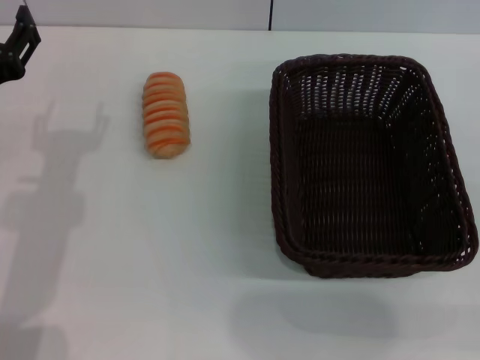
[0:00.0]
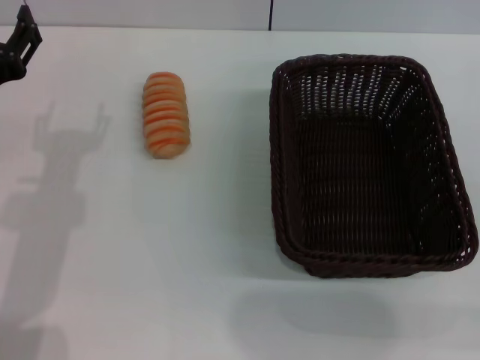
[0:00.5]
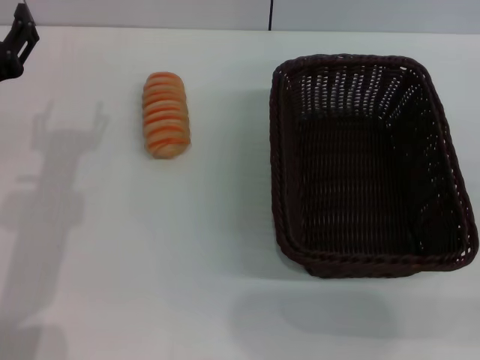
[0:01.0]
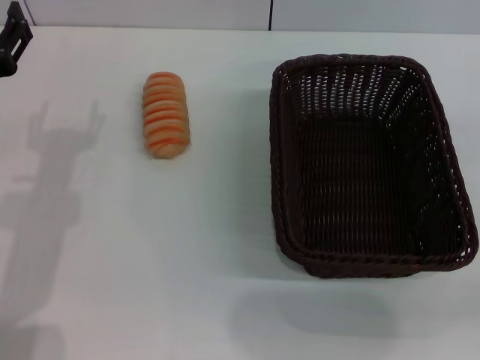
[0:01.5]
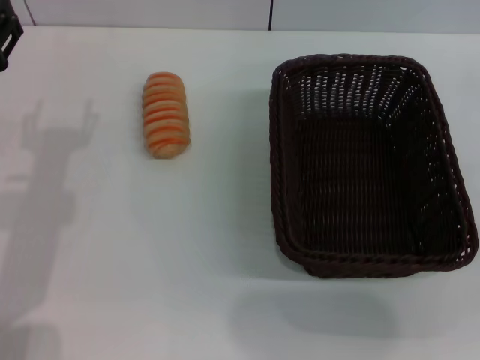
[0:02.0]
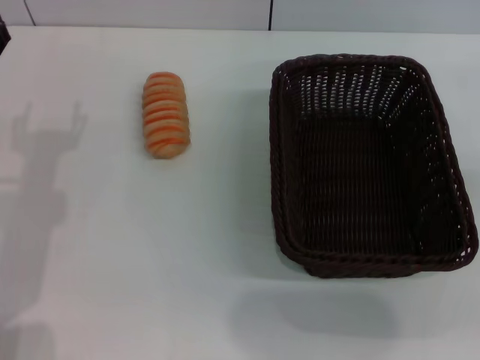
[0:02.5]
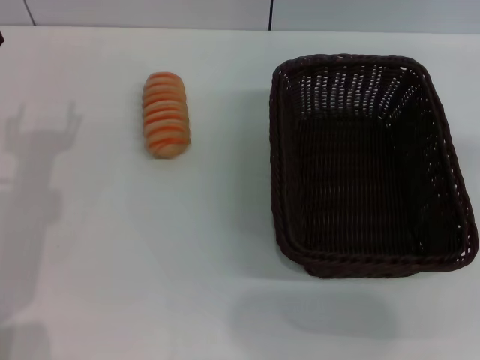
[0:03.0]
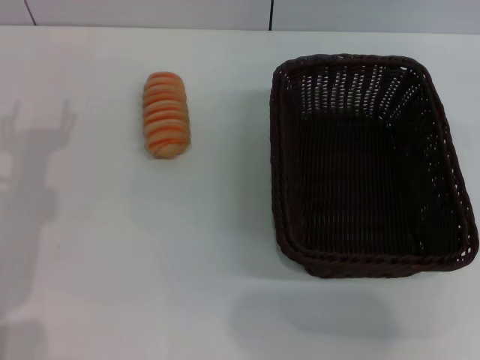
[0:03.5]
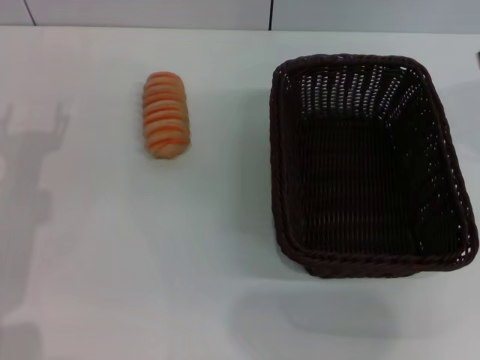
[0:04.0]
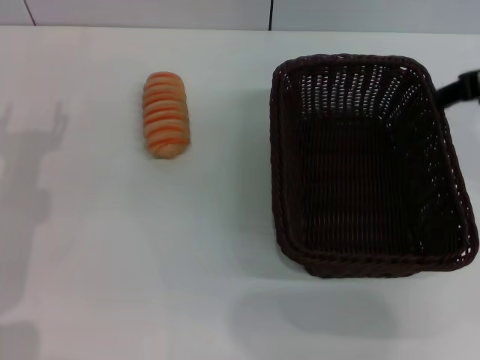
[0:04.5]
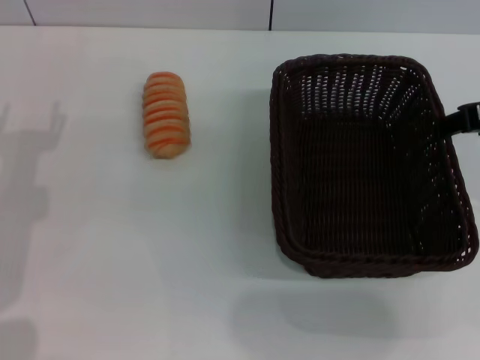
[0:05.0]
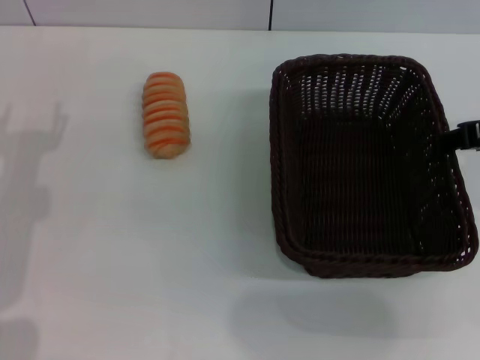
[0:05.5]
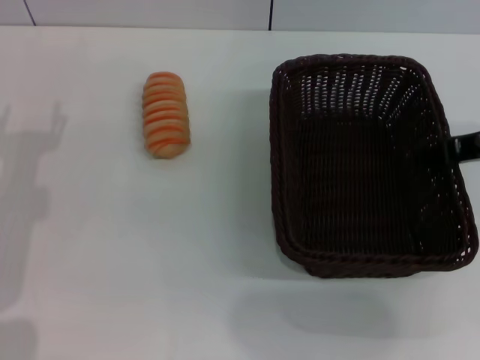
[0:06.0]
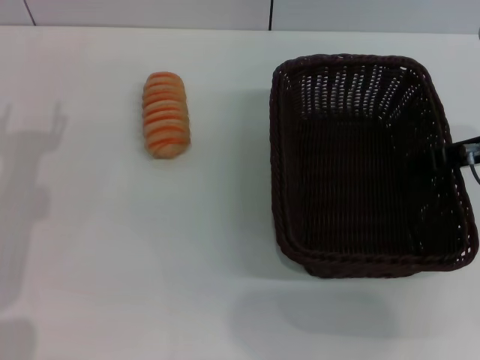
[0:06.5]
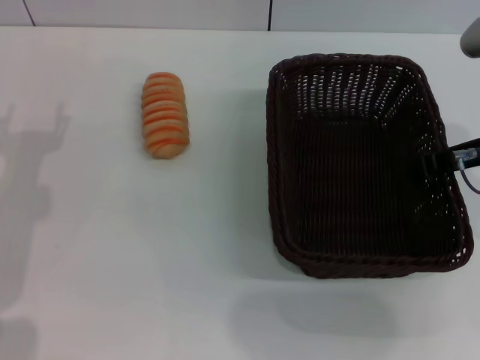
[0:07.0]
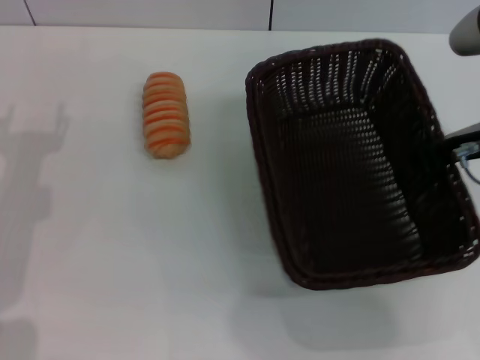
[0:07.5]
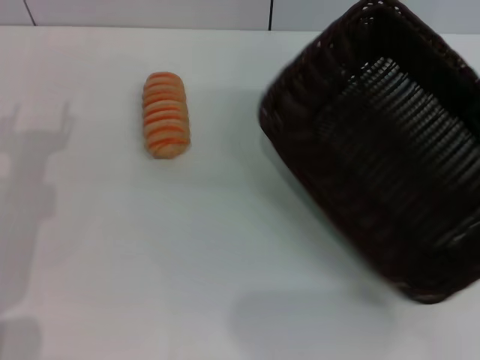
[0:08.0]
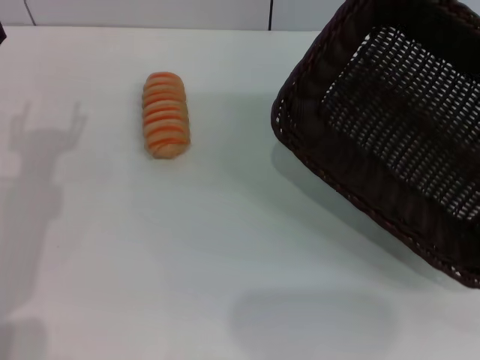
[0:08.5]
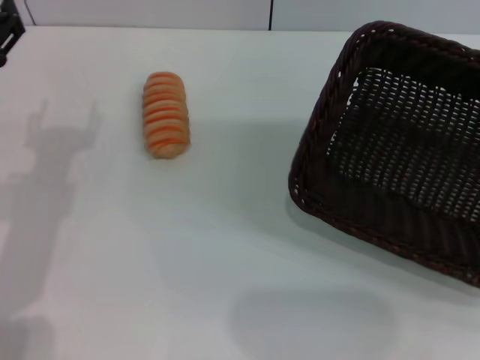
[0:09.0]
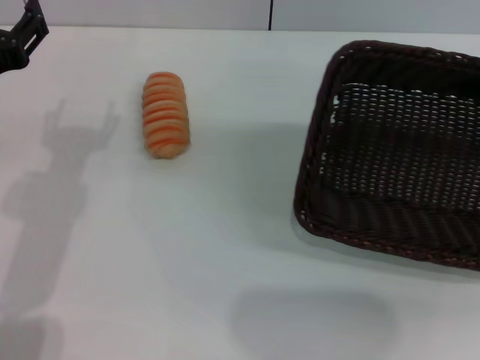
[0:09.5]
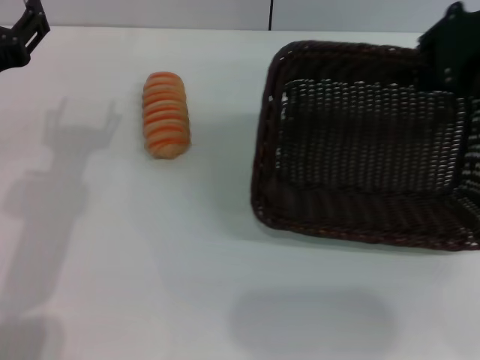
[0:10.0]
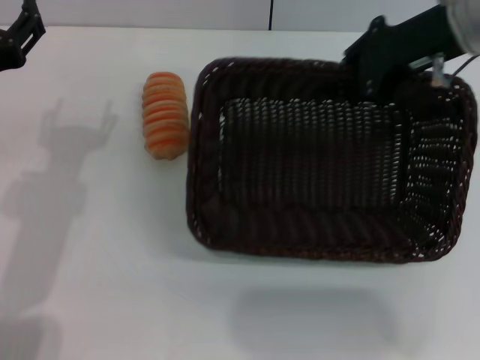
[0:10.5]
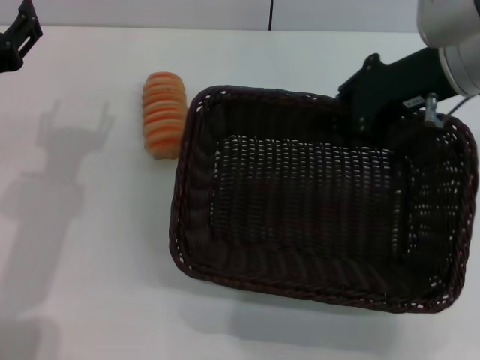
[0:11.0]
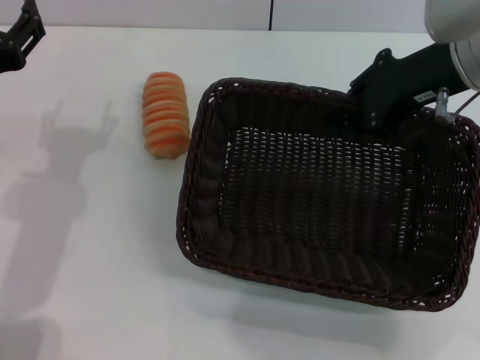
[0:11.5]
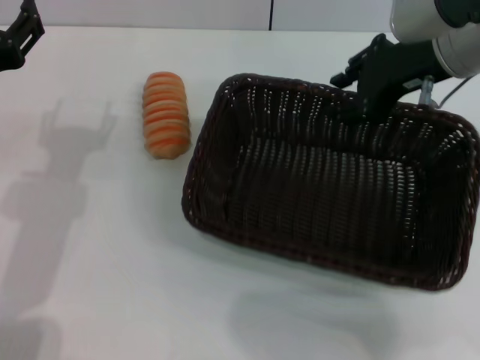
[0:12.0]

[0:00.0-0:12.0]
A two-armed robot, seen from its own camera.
Step, 0:00.0 to 0:08.0: Pick up the dark basket with the right gripper.
0:06.0 to 0:08.0: The right gripper closes its fingers.
0:08.0 to 0:10.0: The right gripper moves forward, approximately 10 cm.
0:10.0 to 0:12.0: The right gripper travels to the left by about 10 cm.

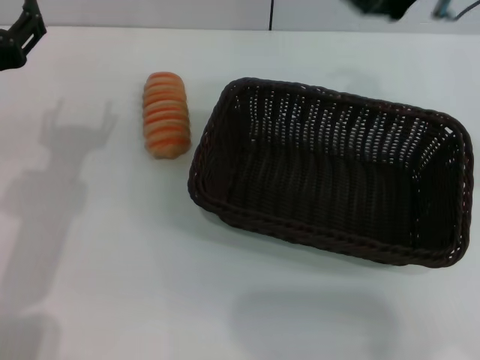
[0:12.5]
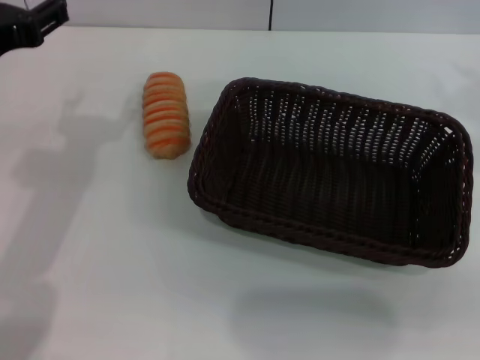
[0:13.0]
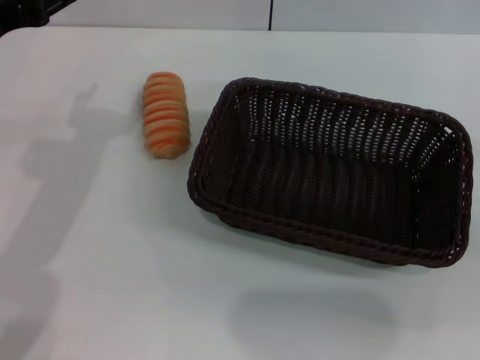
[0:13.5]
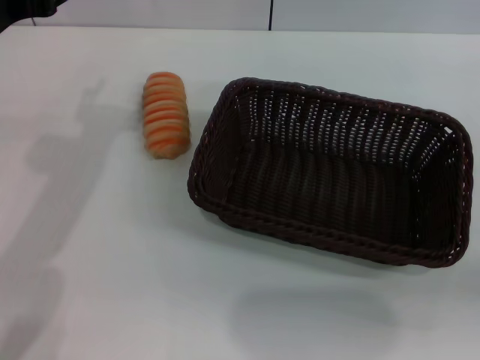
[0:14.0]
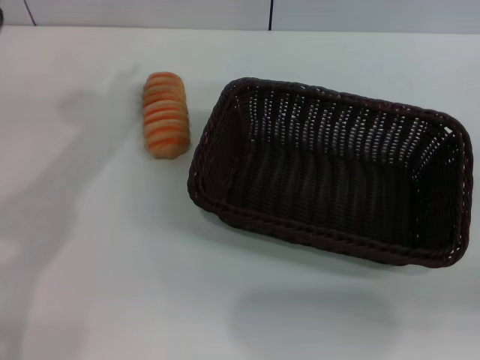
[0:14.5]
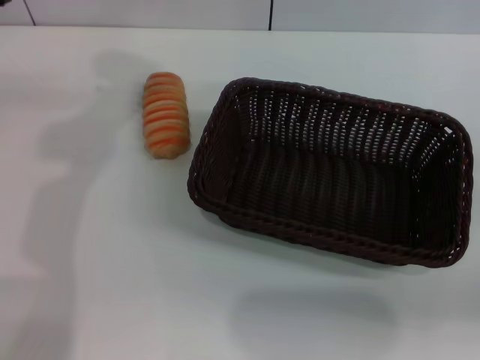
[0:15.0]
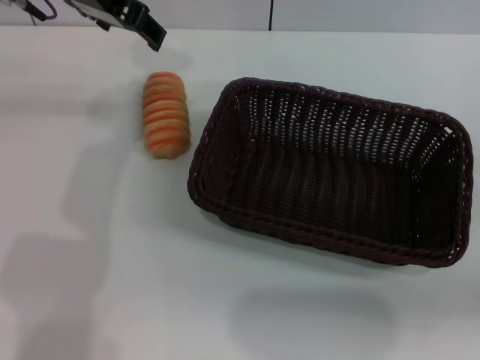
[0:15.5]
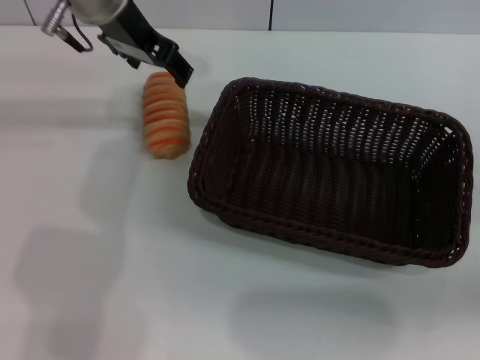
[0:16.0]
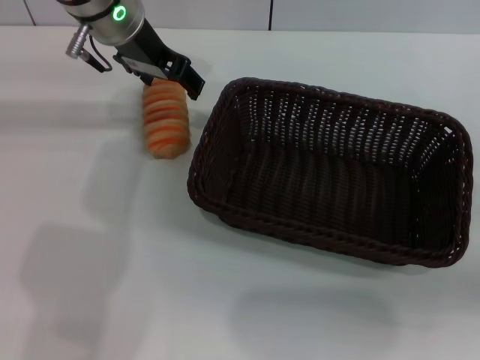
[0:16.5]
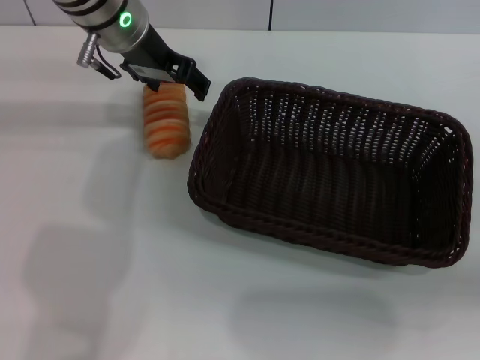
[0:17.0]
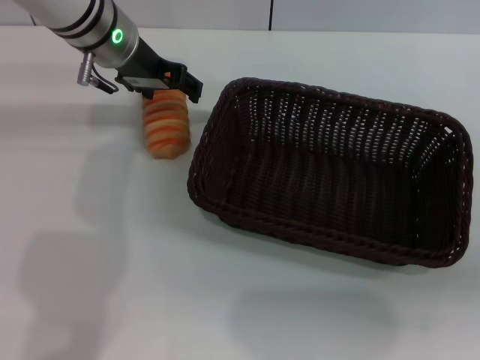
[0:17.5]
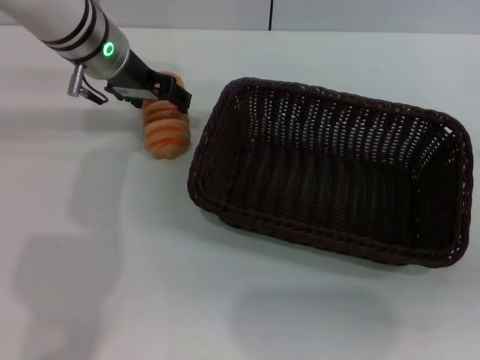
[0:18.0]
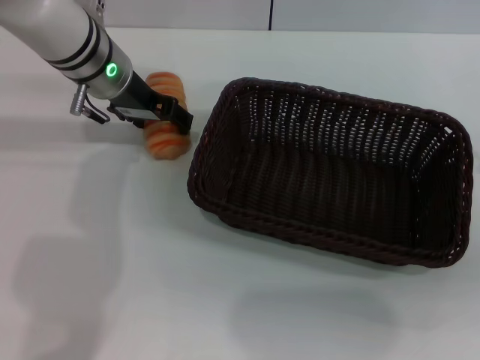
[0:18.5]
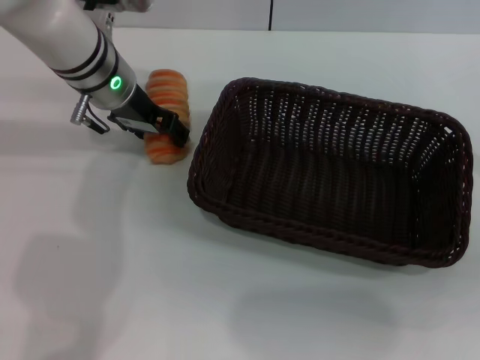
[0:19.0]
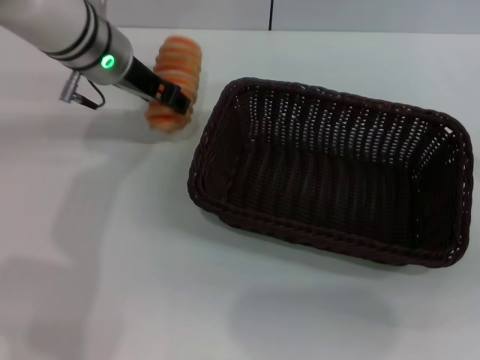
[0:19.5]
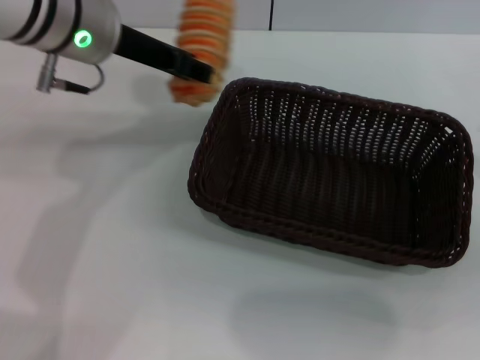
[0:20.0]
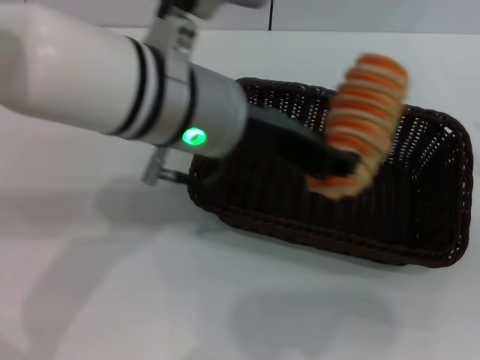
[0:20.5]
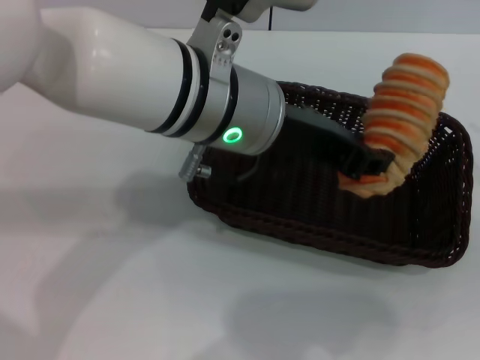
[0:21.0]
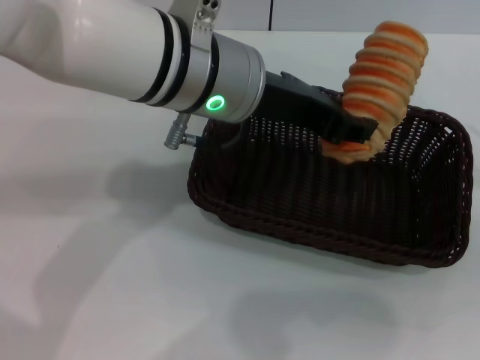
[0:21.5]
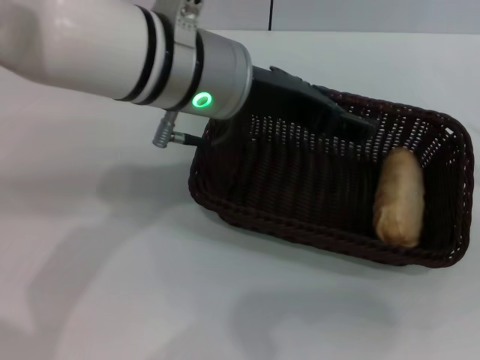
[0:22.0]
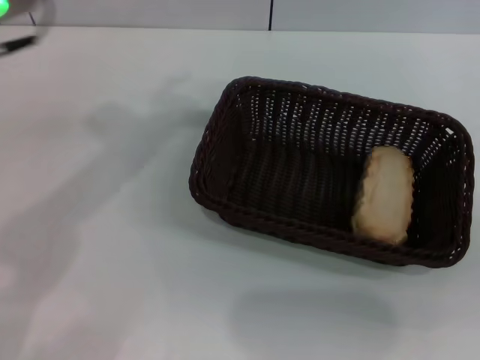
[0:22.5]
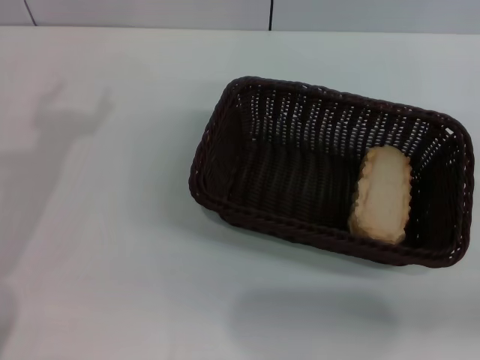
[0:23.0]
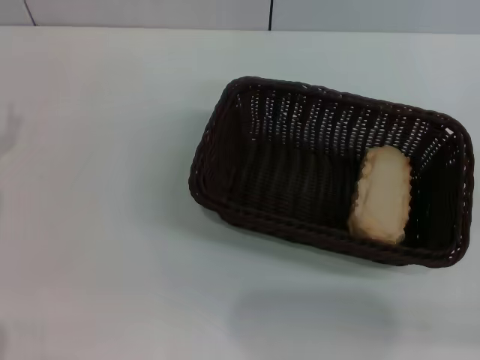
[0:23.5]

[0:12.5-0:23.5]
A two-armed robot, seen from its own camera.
Step, 0:12.5 to 0:19.0: Pick up the long bread with the left gripper.
Step, 0:19.5 to 0:22.0: Place the long bread into the dark basket with the left gripper.
0:12.5 to 0:14.5: The right gripper moves to the right, backward and downward, some 35 cm. Meanwhile the left gripper moves upward and forward, about 15 cm.
0:14.5 to 0:16.0: The left gripper travels forward and to the right by roughly 15 cm.
0:16.0 to 0:18.0: The left gripper goes roughly 5 cm downward. Meanwhile the right gripper changes place by some 5 cm.
0:18.0 to 0:20.0: The left gripper is displaced backward and upward by about 10 cm, and closes up.
0:20.0 to 0:21.5: The left gripper travels to the right and backward by some 10 cm, and closes its fingers.
0:21.5 to 0:23.5: The right gripper shifts approximately 15 cm to the right and backward, while the left gripper shifts approximately 25 cm to the left, and opens up.
